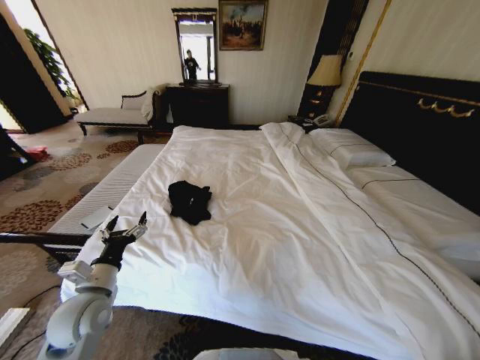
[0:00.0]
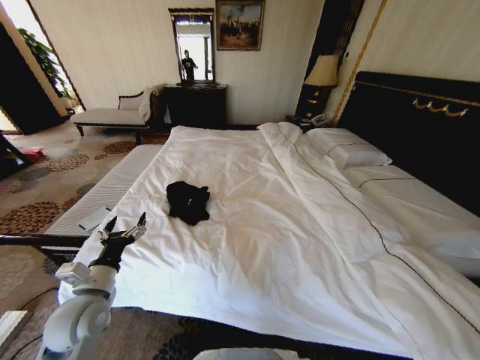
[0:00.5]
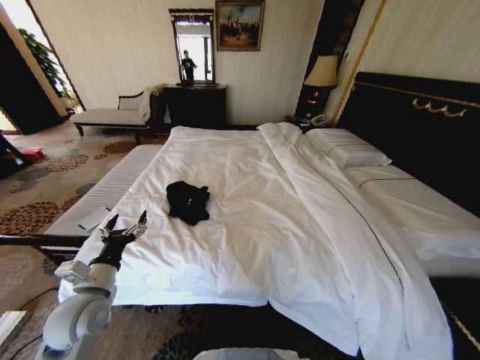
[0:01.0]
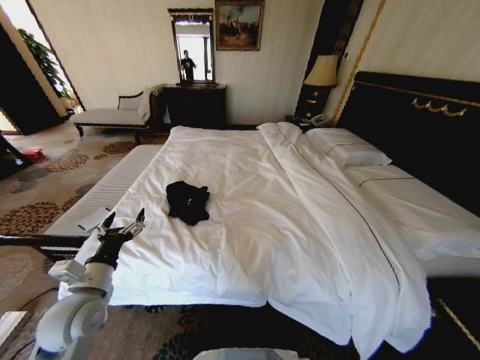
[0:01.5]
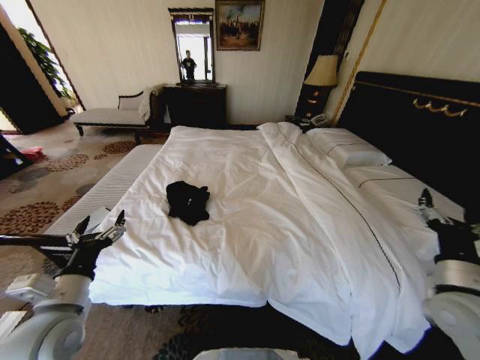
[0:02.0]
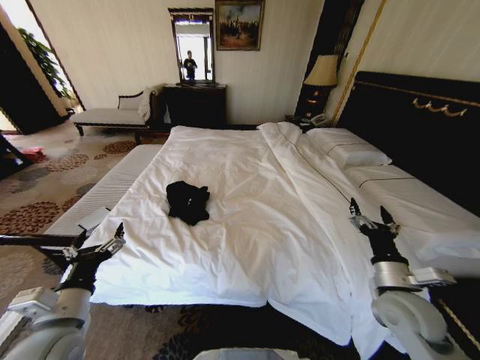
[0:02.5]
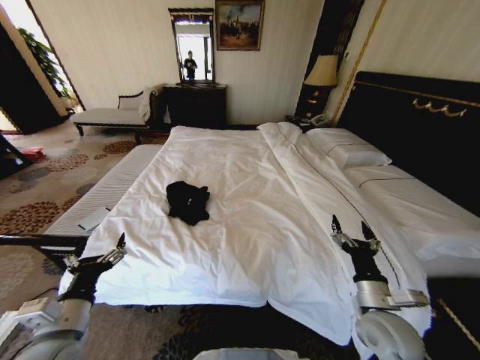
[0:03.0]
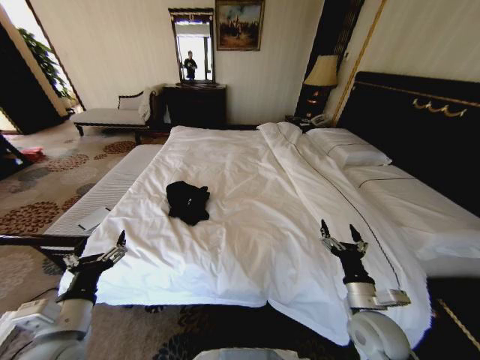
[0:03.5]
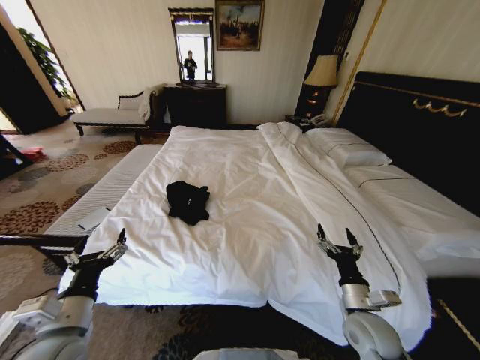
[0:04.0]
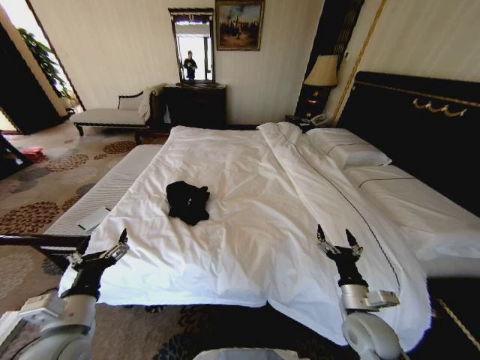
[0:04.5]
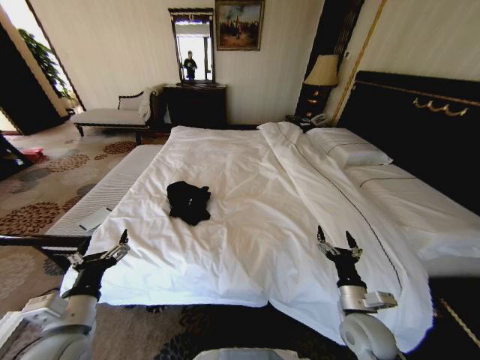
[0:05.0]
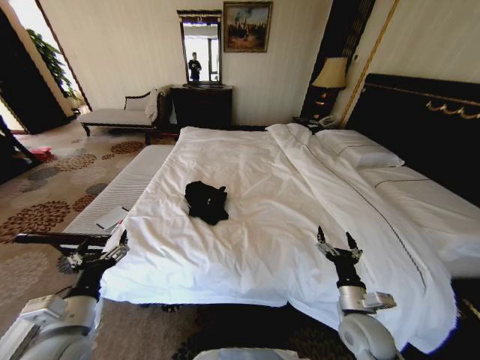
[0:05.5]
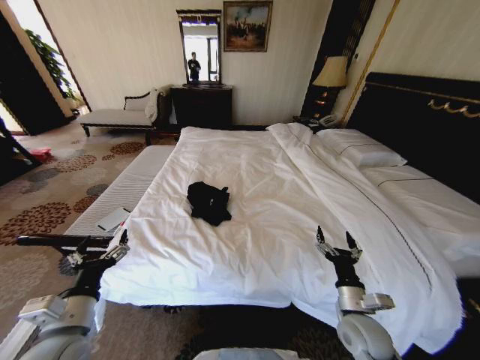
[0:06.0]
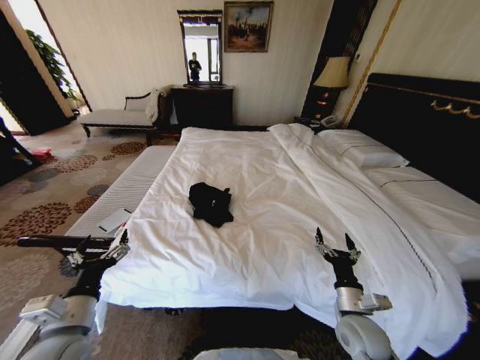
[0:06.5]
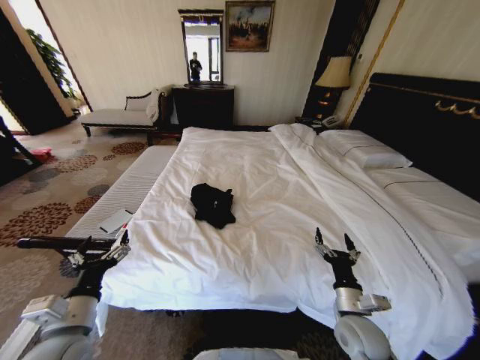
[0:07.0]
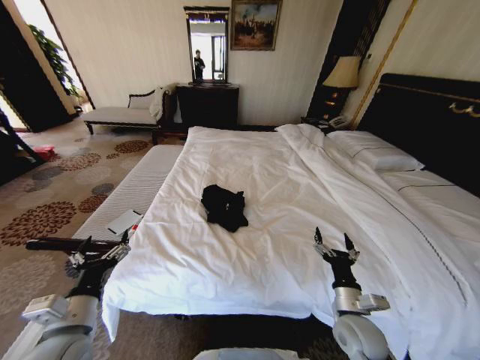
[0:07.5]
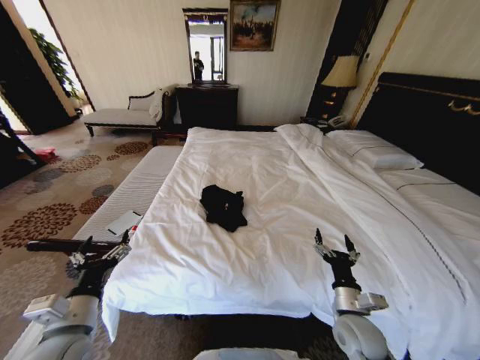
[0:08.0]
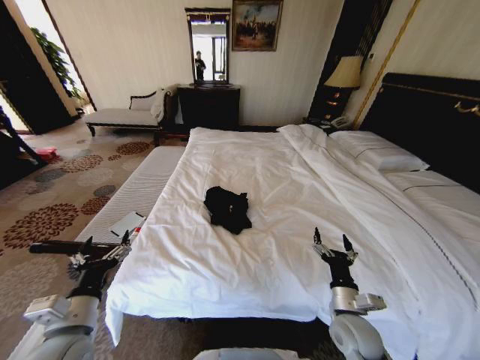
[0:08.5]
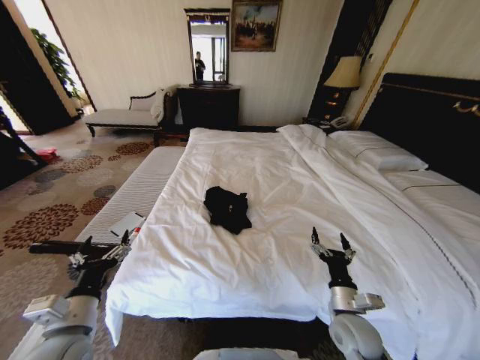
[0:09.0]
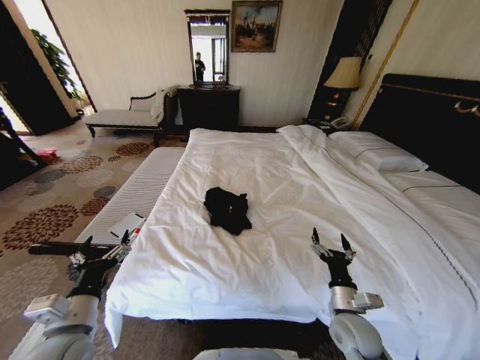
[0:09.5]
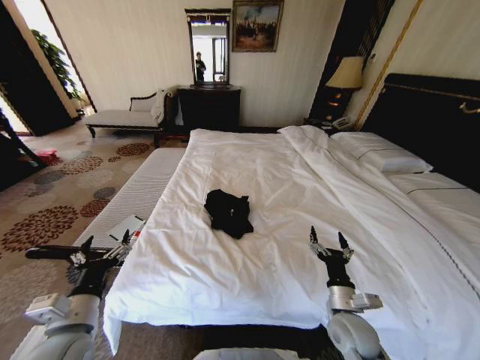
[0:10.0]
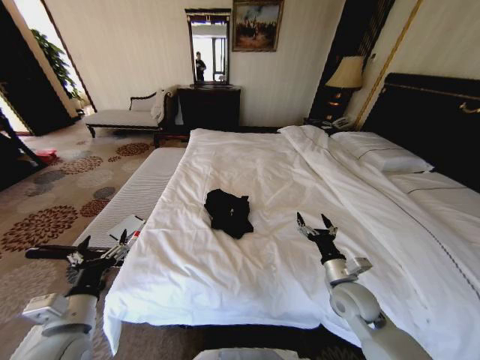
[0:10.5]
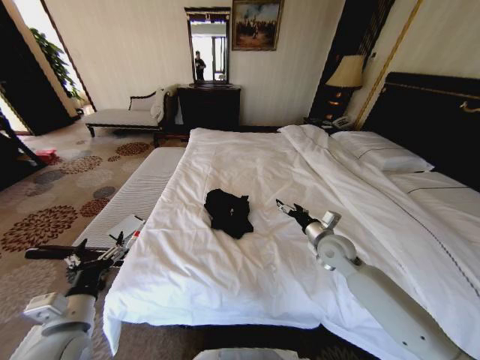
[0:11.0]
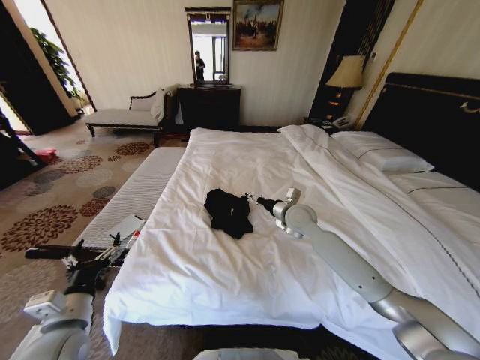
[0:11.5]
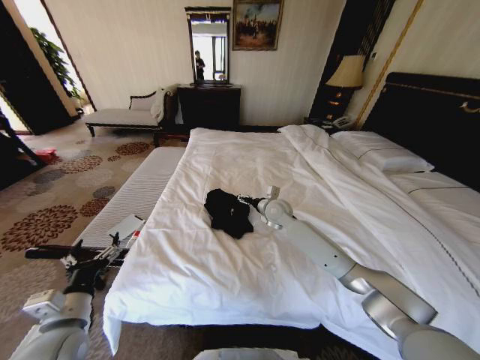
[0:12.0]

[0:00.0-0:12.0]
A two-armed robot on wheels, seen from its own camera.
Task of the whole recording: Fold the clothes on the bed.
0.0 to 2.0 s: The left gripper moves approximately 5 cm, while the right gripper shifts about 30 cm upward, forward and to the left, and opens.
2.0 to 4.0 s: The right gripper goes about 15 cm to the left and downward.
8.0 to 10.0 s: Both grippers stay put.
10.0 to 12.0 s: The right gripper travels forward by approximately 35 cm.

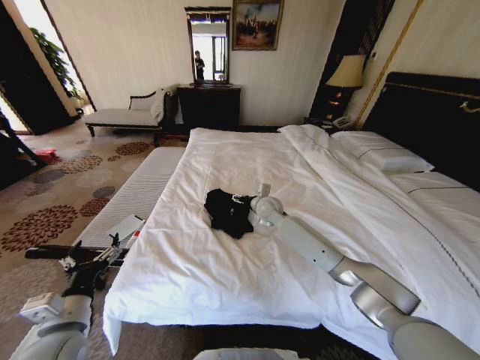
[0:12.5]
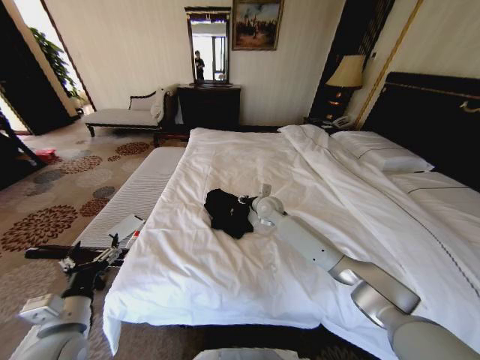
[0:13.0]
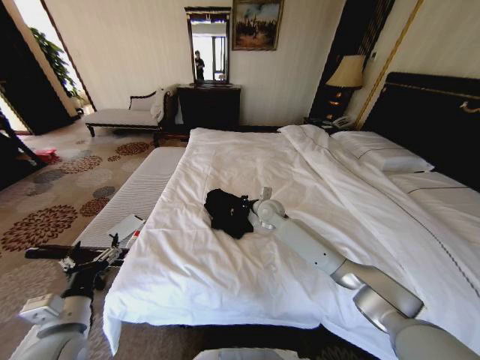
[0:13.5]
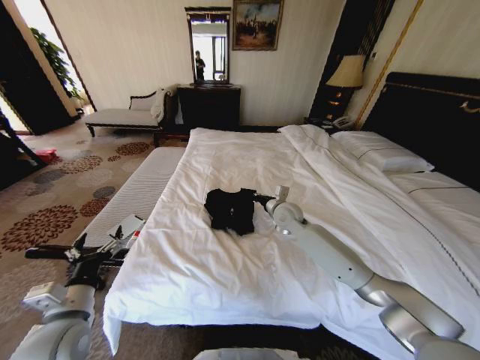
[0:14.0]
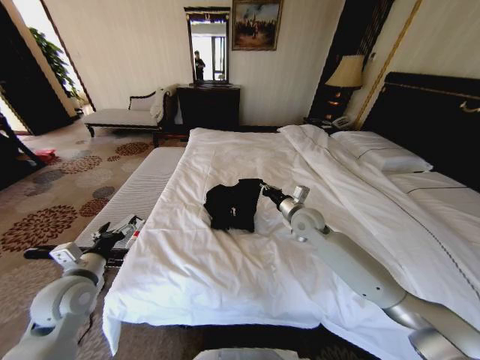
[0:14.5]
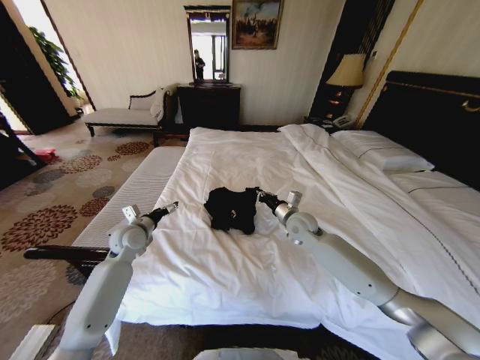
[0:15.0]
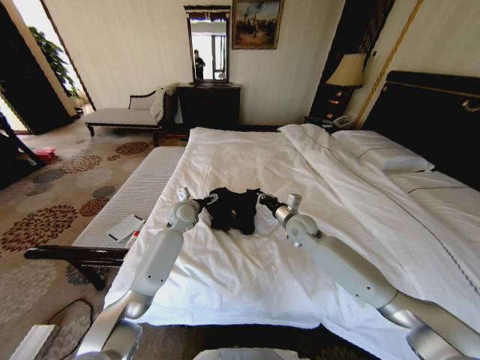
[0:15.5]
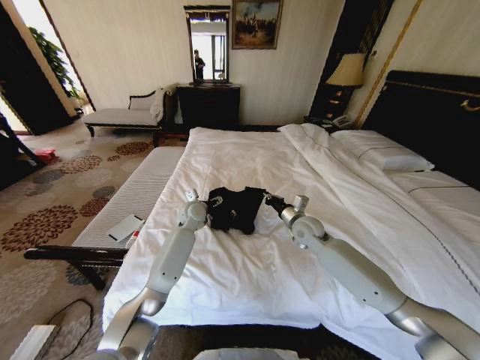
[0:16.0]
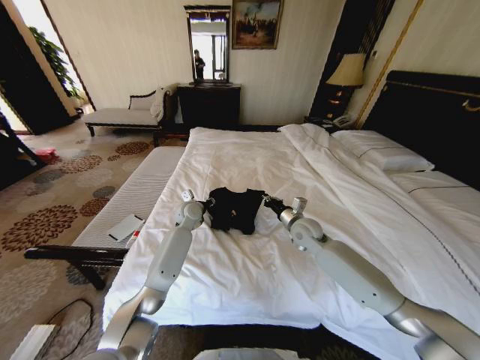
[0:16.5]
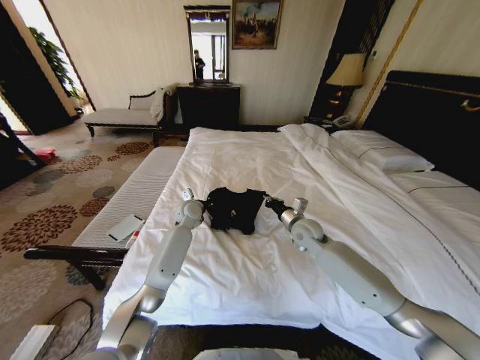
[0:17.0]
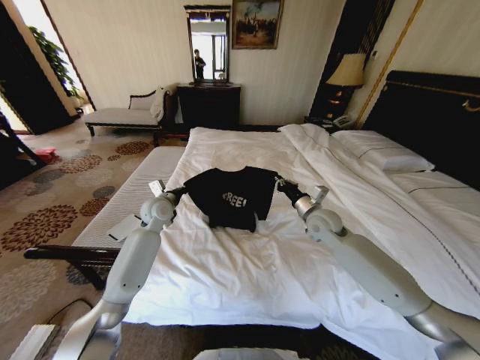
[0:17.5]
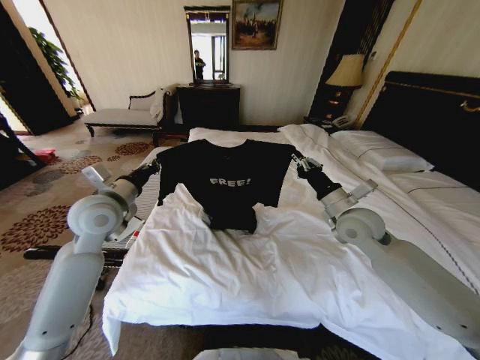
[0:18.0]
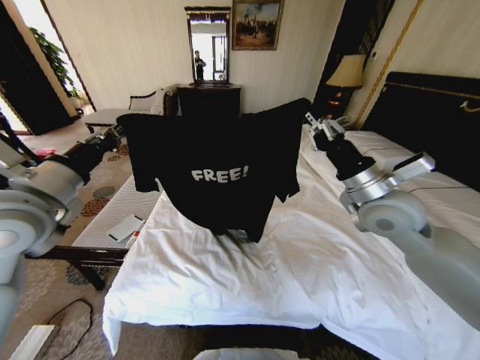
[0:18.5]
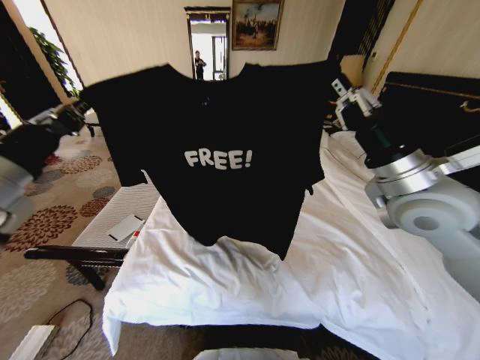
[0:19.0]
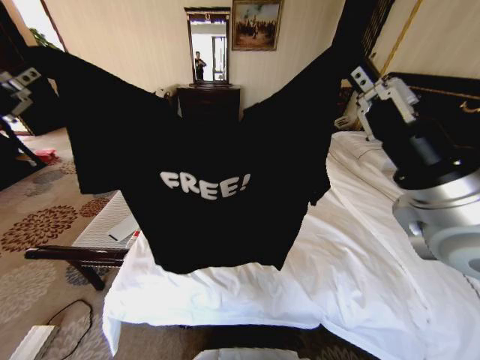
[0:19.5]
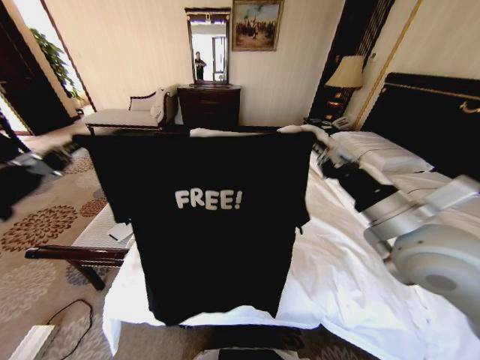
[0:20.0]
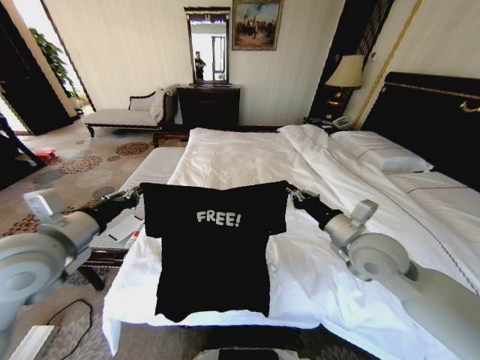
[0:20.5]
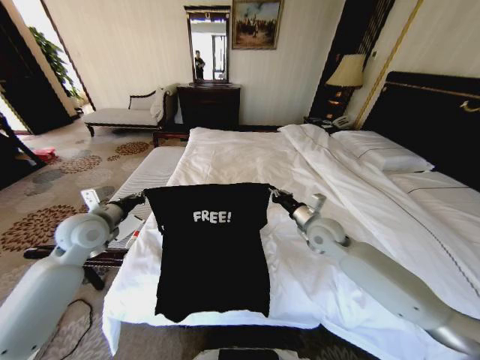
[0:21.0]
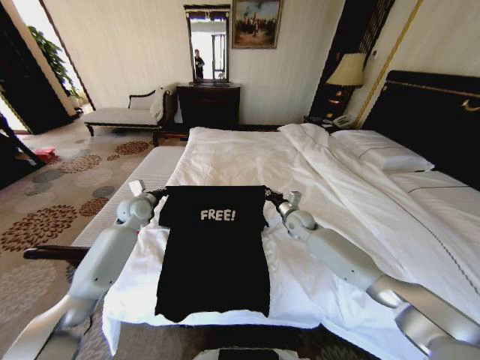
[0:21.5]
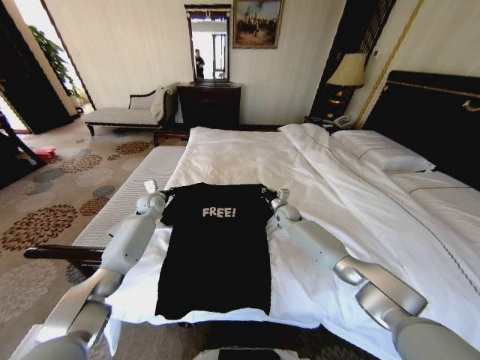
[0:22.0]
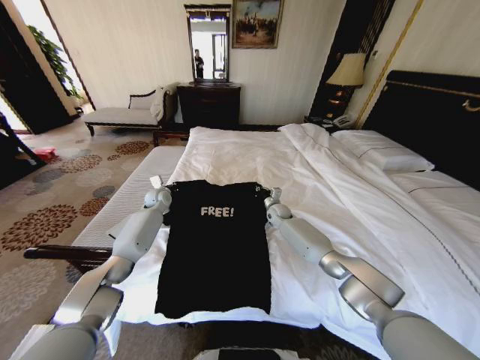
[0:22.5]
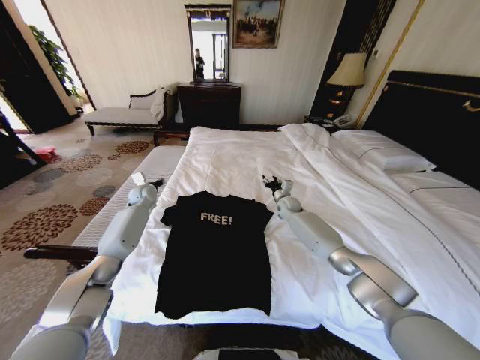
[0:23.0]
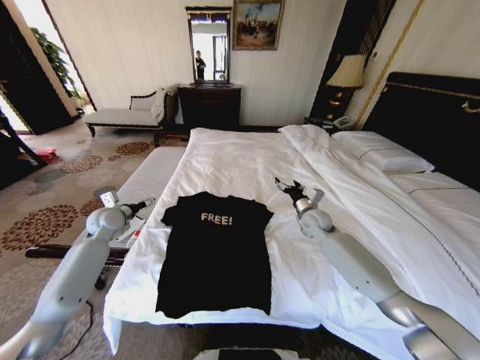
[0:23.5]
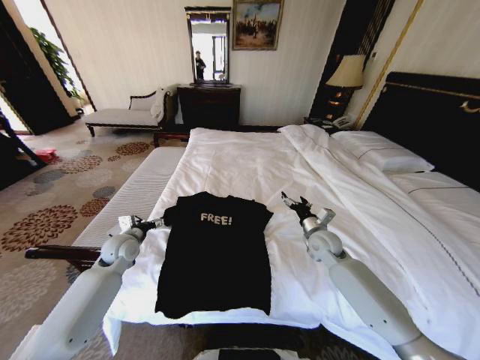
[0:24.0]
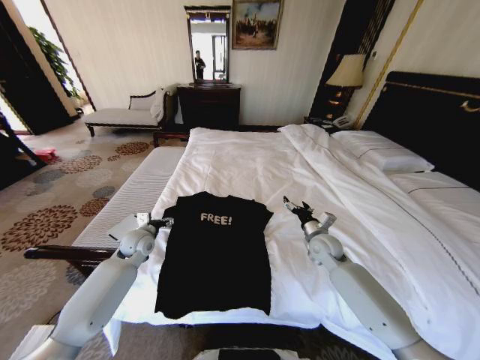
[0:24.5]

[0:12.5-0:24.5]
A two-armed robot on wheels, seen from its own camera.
Task of the whole recording: Fold the clothes on the bed.
12.5 to 14.5 s: The right gripper goes roughly 15 cm to the right and backward, and closes, while the left gripper goes roughly 10 cm forward.
14.5 to 16.5 s: The left gripper heads forward and to the right, covering about 35 cm, and closes up.
16.5 to 18.5 s: The right gripper goes roughly 25 cm upward and backward; the left gripper goes some 40 cm upward, backward and to the left, and closes its fingers.
18.5 to 20.5 s: Both grippers move downward, some 5 cm.
20.5 to 22.5 s: The two grippers go about 40 cm forward and downward.
22.5 to 24.5 s: The right gripper is displaced backward and to the right by about 20 cm, and opens up. The left gripper shifts about 20 cm backward, and opens up.

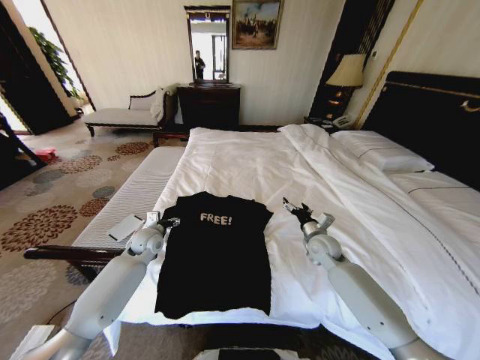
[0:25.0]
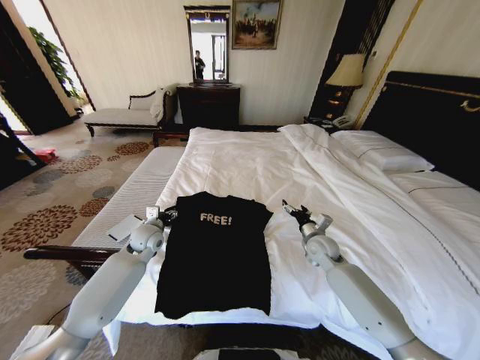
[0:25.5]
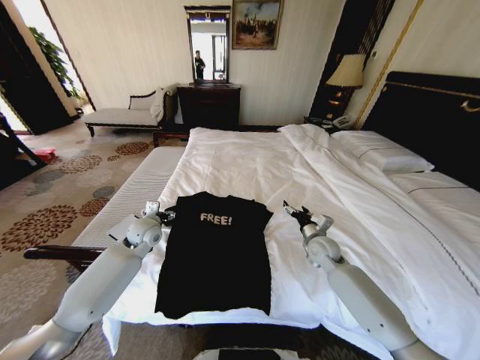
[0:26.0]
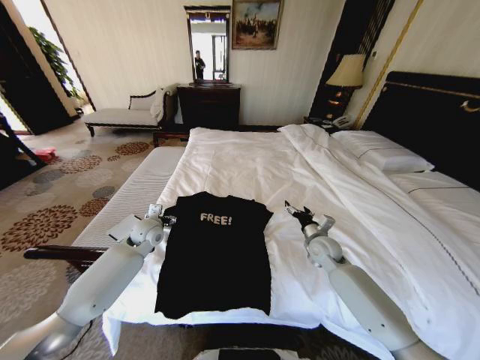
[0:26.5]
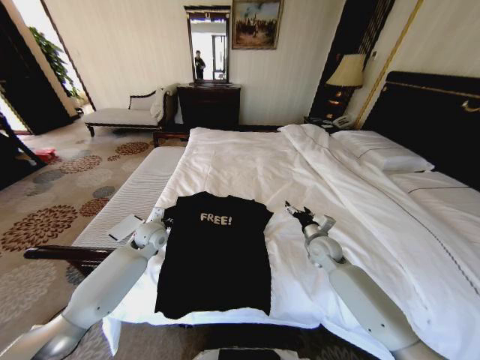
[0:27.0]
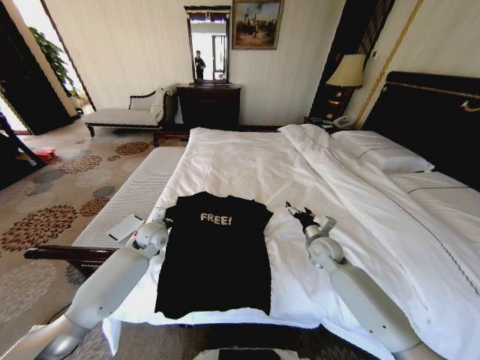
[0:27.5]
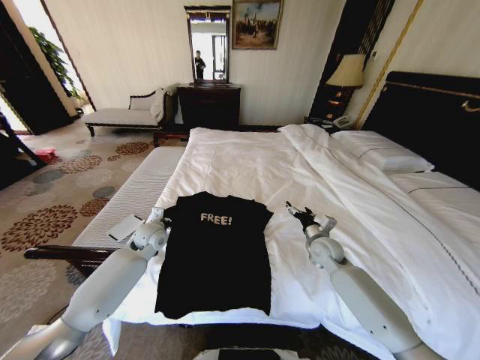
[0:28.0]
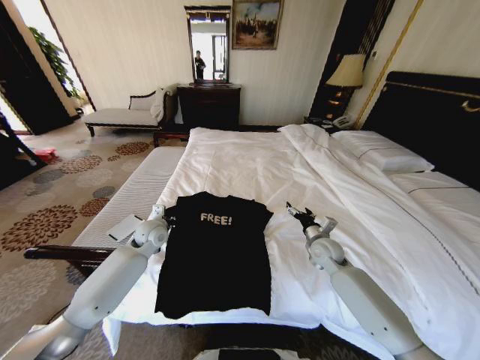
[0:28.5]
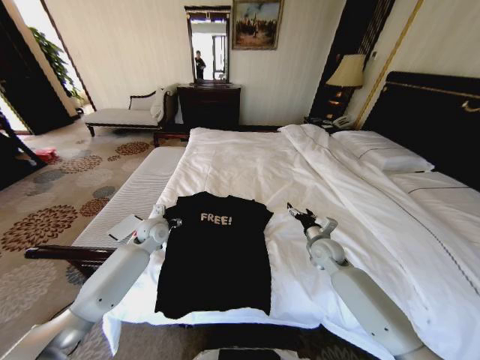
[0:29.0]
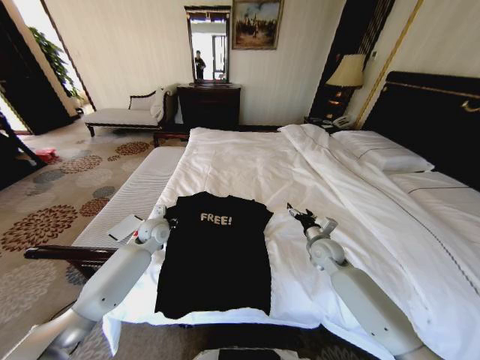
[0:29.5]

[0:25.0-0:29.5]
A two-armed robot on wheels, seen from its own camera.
Task of the whole recording: Fold the clothes on the bed.
25.0 to 27.0 s: The left gripper closes up.
27.0 to 29.5 s: The left gripper closes, then reopens.
